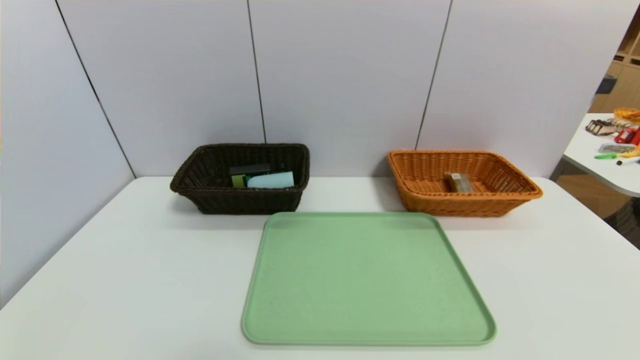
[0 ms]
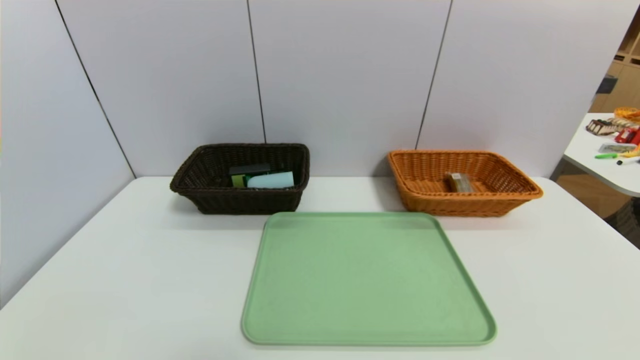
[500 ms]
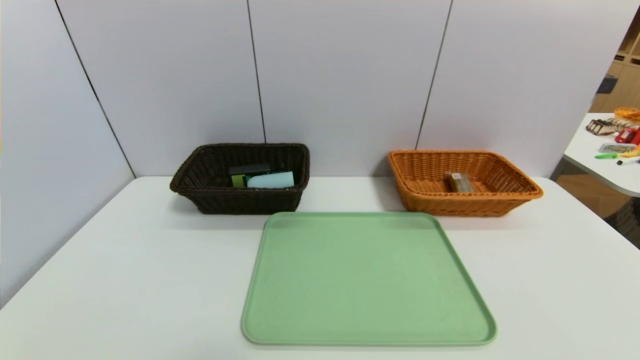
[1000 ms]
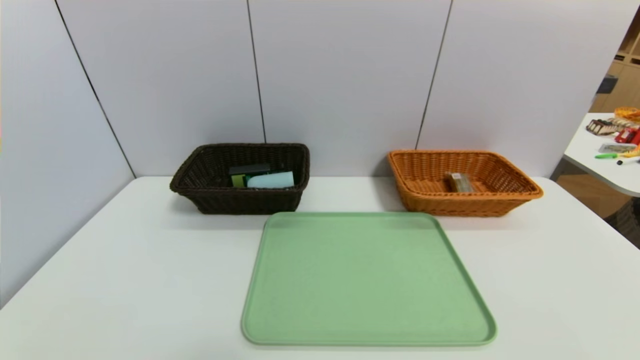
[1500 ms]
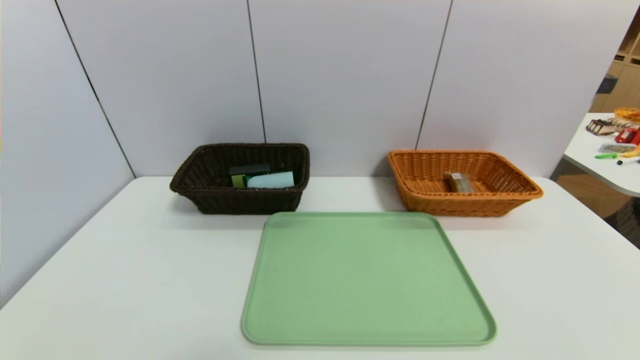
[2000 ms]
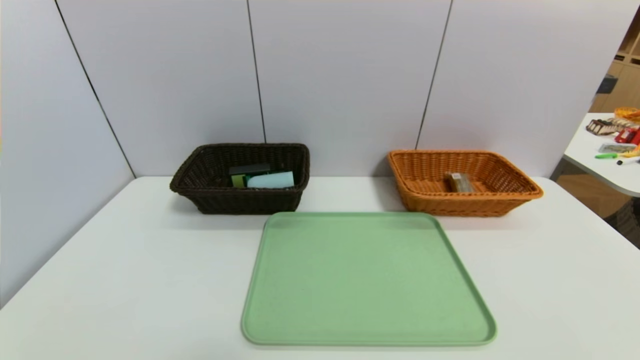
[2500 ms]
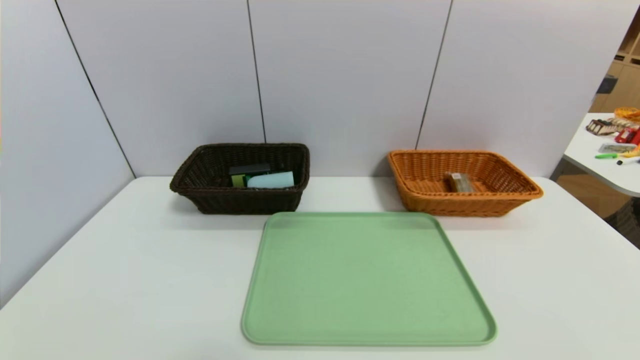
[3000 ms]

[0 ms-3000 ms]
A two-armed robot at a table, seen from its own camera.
Task of the whole recording: place the food in the right basket with the right gripper, and place the non food items in the left basket with the left gripper.
1500 ms to 3000 ms: Neither gripper changes place.
